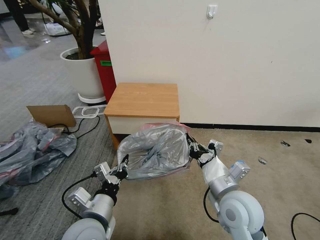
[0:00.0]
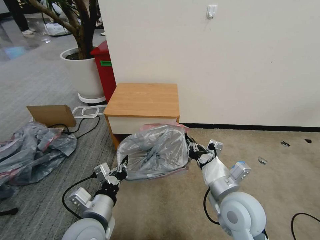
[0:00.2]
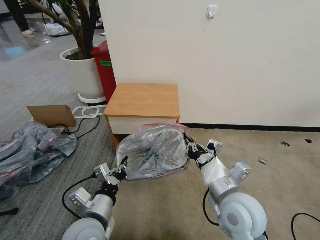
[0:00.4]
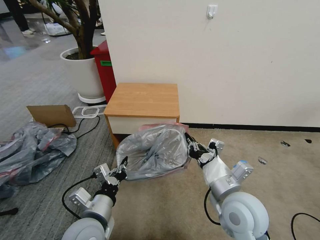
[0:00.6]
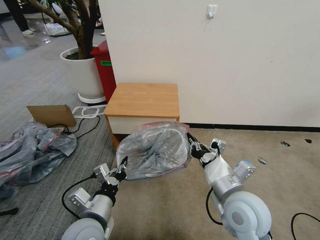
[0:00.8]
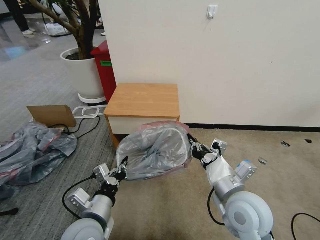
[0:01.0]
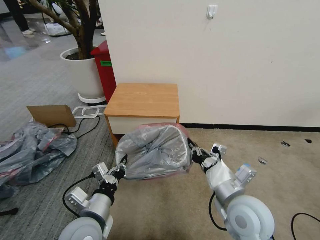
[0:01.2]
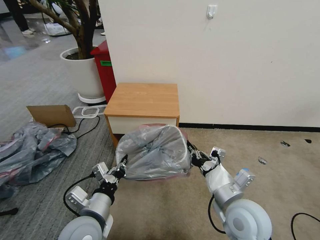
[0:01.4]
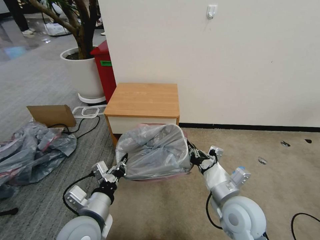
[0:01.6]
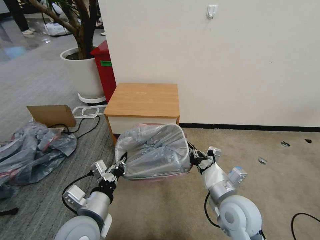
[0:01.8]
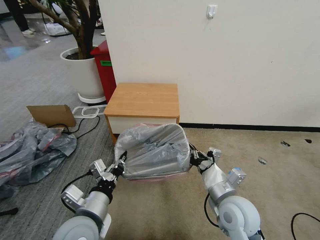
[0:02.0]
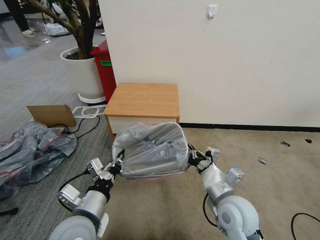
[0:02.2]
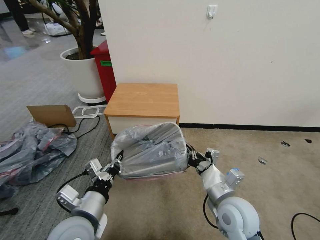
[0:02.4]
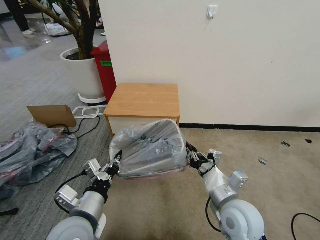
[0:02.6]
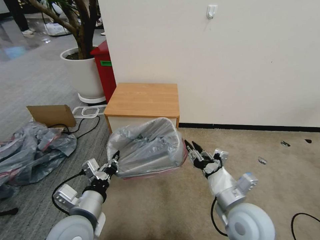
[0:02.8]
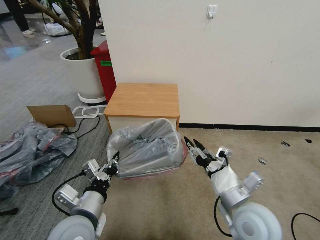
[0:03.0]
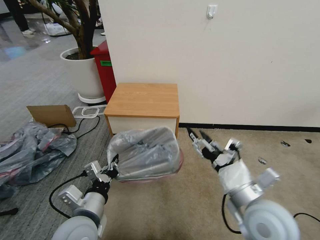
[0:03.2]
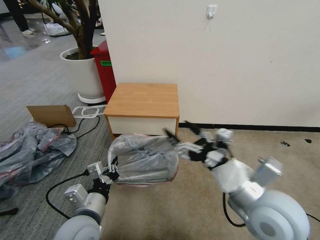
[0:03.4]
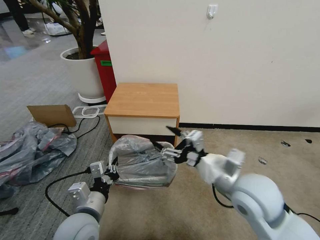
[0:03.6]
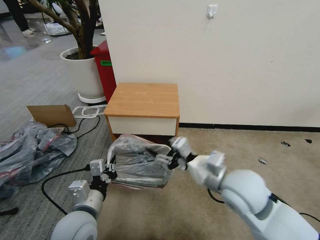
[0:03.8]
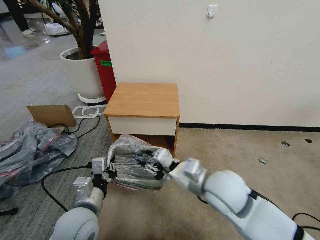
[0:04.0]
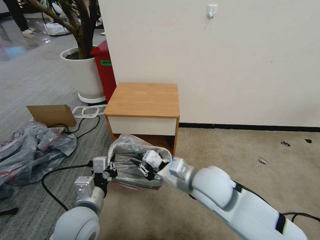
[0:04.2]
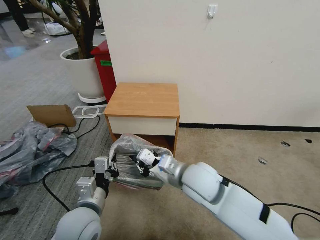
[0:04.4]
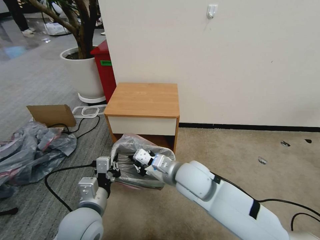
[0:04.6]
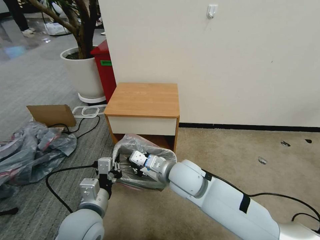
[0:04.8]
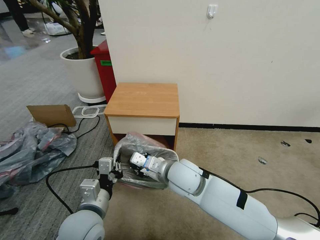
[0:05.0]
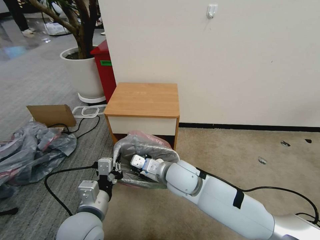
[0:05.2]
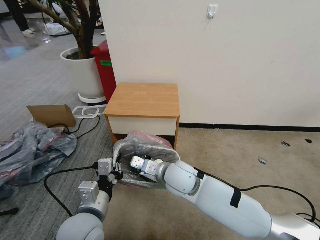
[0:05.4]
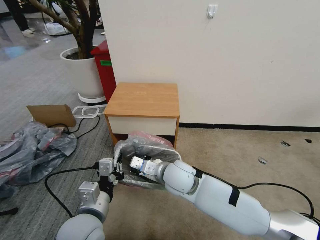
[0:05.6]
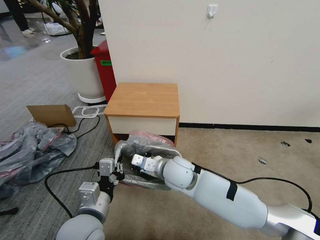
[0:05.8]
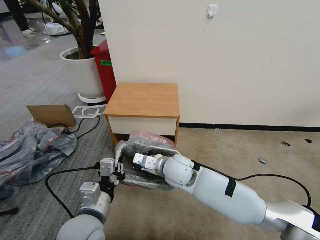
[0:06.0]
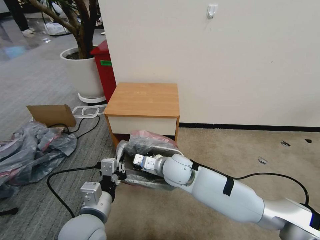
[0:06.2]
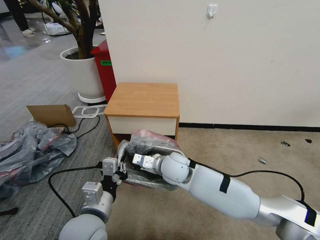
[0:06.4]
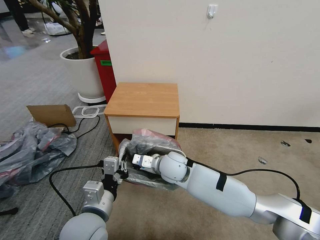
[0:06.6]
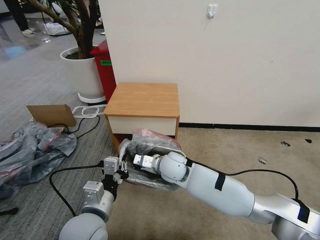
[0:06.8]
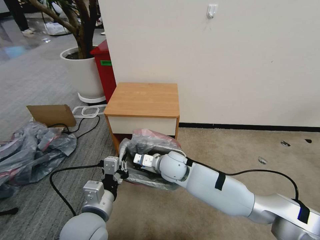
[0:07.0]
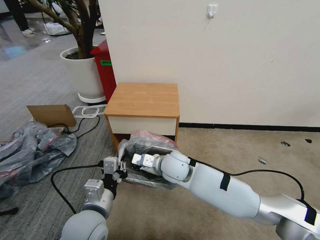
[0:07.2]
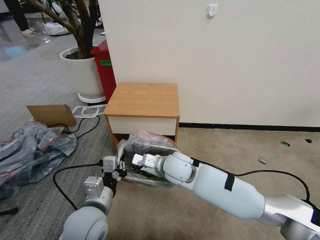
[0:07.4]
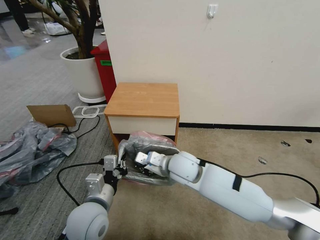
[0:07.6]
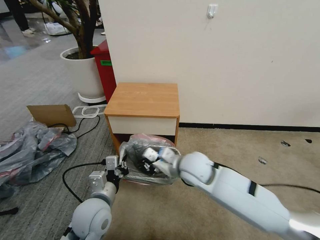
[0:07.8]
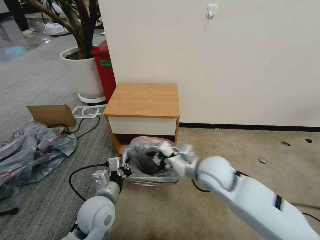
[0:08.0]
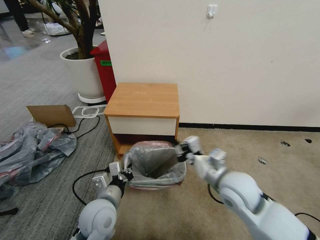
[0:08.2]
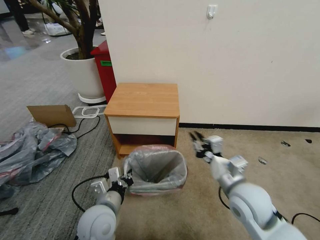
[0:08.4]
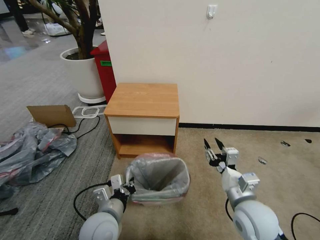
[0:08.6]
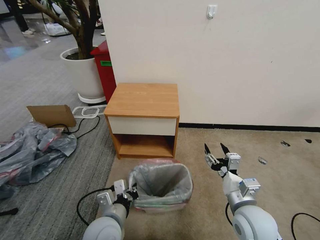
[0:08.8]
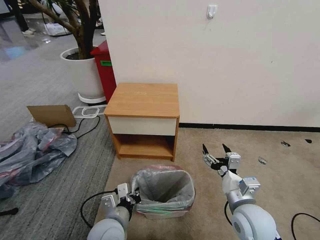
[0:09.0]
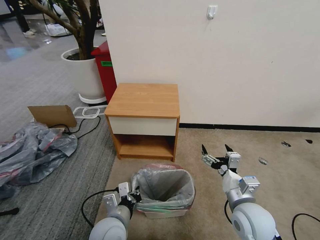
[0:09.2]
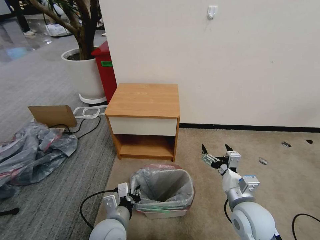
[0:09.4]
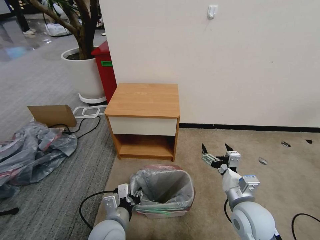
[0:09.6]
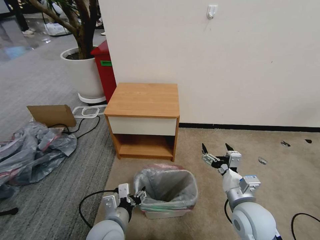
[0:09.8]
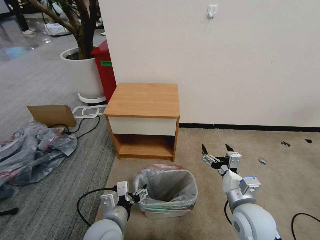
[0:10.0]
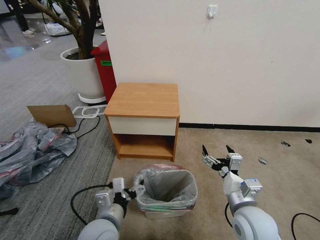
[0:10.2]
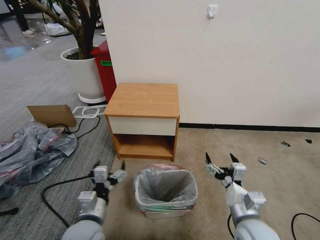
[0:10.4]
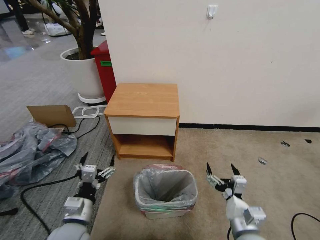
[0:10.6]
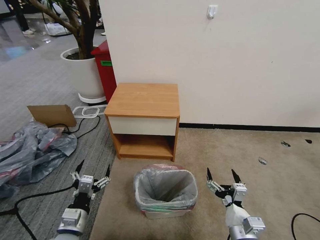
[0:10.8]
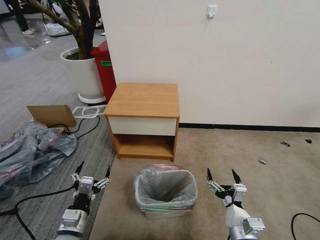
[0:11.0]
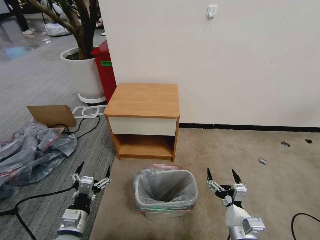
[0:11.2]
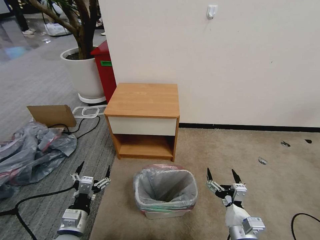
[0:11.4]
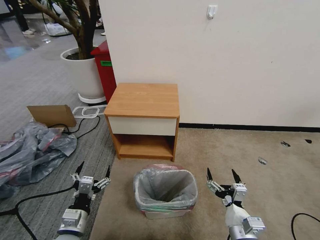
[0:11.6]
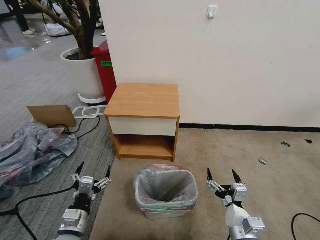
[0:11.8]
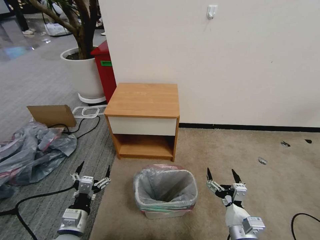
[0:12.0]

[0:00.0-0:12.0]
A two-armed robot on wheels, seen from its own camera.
Task of the whole recording: Pick up the garbage bag from the table and place it over the trash can.
0:00.0 to 0:01.6: The grippers stay close to where they were, moving slightly.
0:01.6 to 0:03.0: The right gripper opens.
0:03.0 to 0:04.4: The right gripper is displaced to the left and forward by some 15 cm, and closes.
0:04.4 to 0:06.0: The right gripper shifts roughly 10 cm forward and downward.
0:06.0 to 0:07.6: The grippers move only a little.
0:07.6 to 0:09.0: The right gripper goes some 25 cm to the right and backward, and opens its fingers. Meanwhile the left gripper travels downward by roughly 5 cm.
0:09.0 to 0:10.4: The left gripper ends up some 5 cm from where it was, and opens up.
0:10.4 to 0:12.0: The right gripper is displaced downward by some 5 cm. The left gripper is displaced to the left by roughly 5 cm.
